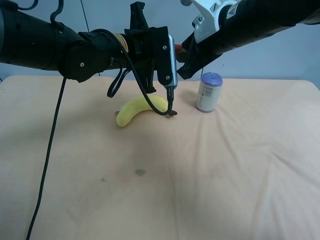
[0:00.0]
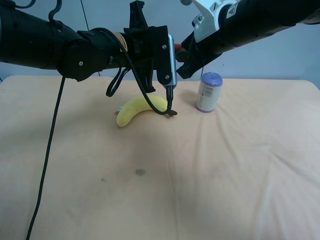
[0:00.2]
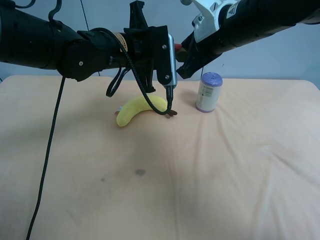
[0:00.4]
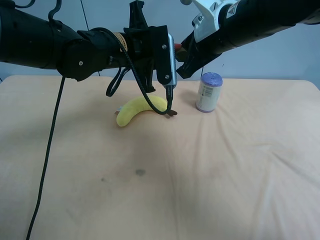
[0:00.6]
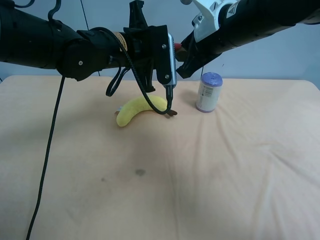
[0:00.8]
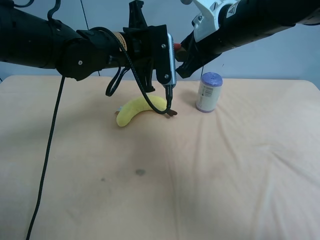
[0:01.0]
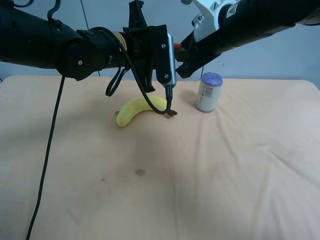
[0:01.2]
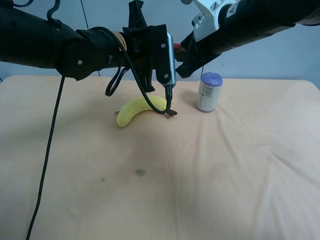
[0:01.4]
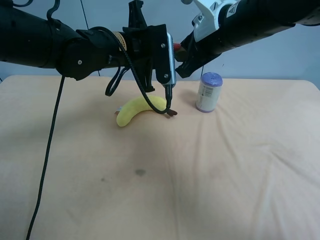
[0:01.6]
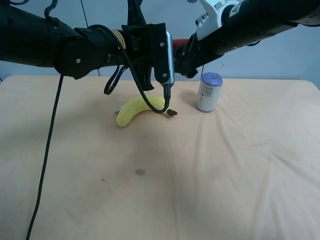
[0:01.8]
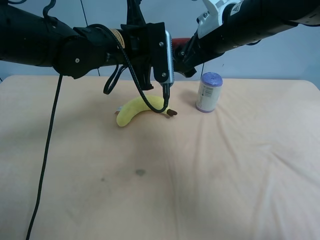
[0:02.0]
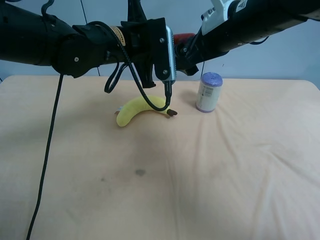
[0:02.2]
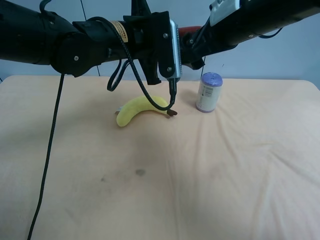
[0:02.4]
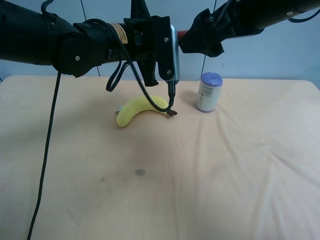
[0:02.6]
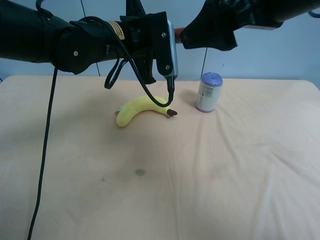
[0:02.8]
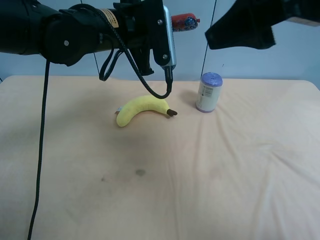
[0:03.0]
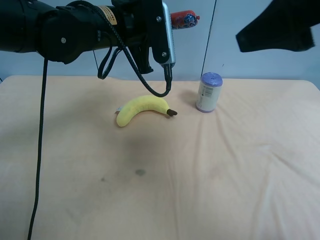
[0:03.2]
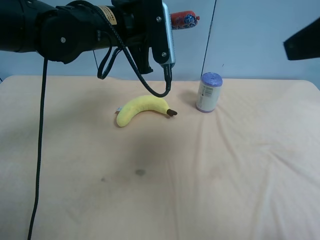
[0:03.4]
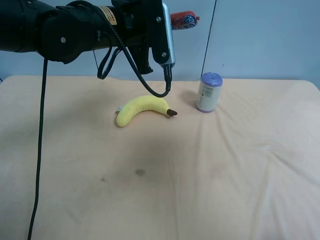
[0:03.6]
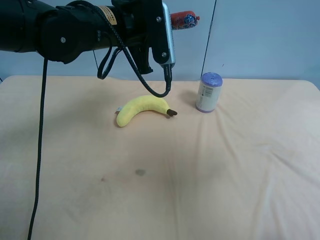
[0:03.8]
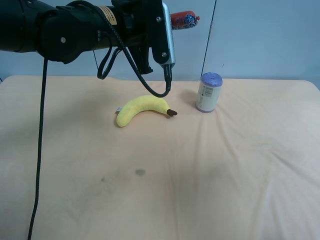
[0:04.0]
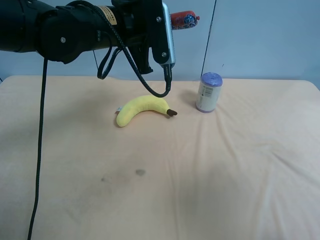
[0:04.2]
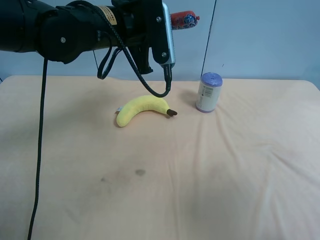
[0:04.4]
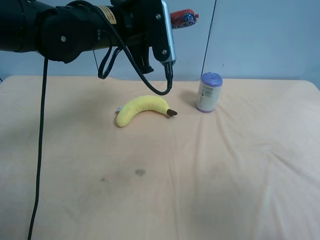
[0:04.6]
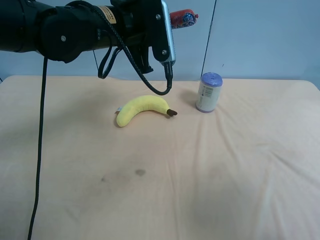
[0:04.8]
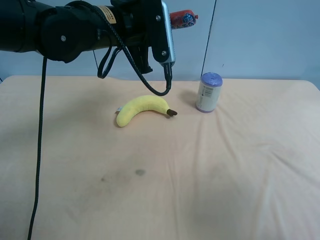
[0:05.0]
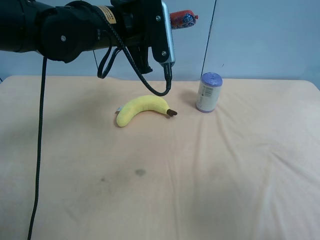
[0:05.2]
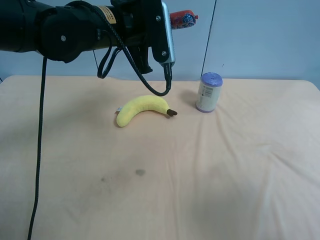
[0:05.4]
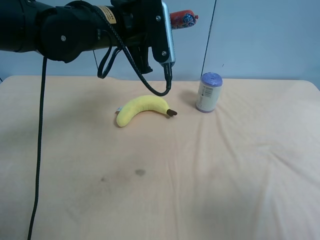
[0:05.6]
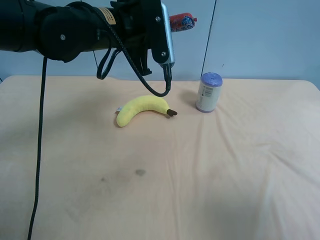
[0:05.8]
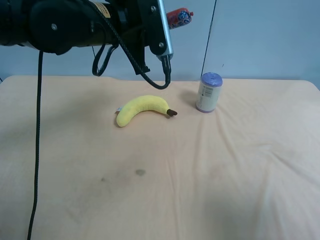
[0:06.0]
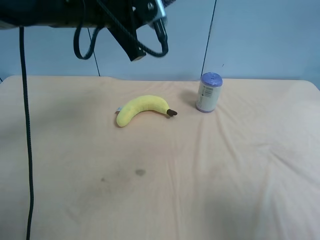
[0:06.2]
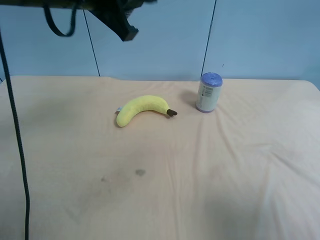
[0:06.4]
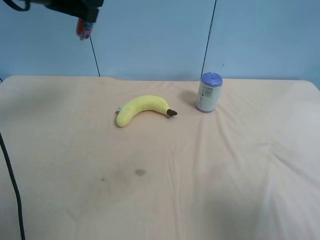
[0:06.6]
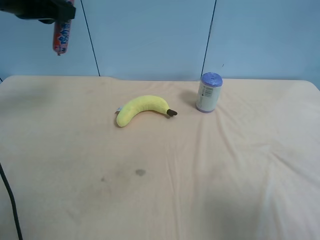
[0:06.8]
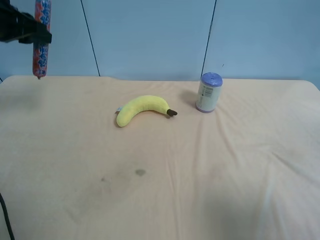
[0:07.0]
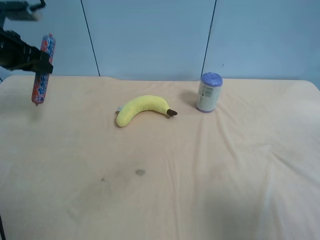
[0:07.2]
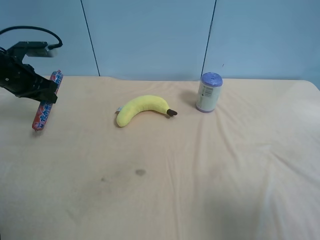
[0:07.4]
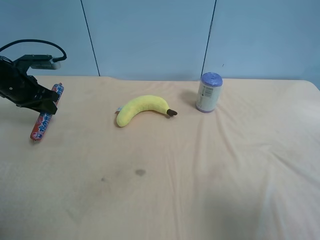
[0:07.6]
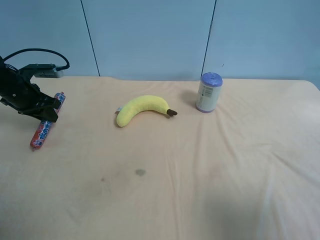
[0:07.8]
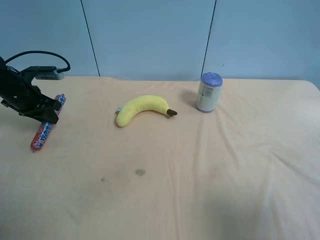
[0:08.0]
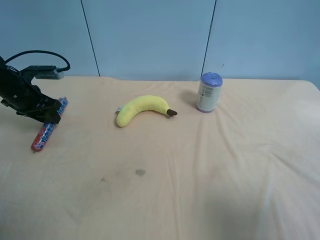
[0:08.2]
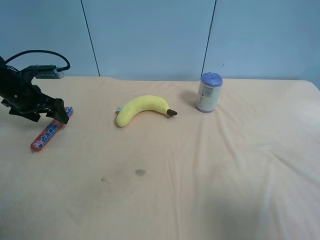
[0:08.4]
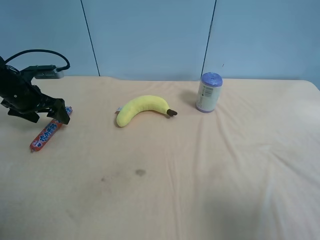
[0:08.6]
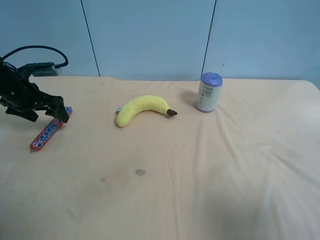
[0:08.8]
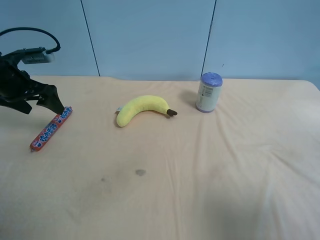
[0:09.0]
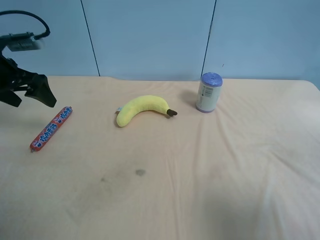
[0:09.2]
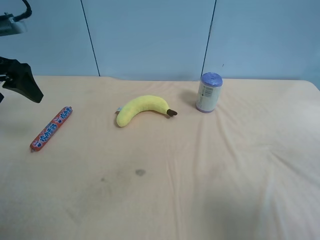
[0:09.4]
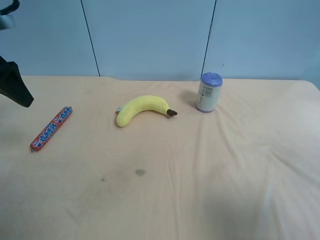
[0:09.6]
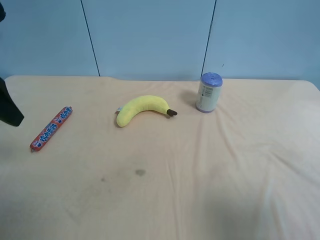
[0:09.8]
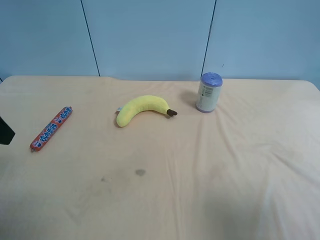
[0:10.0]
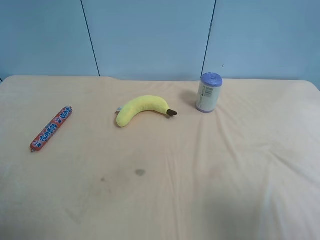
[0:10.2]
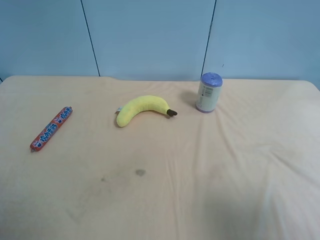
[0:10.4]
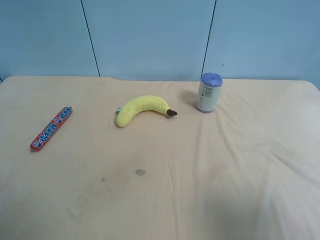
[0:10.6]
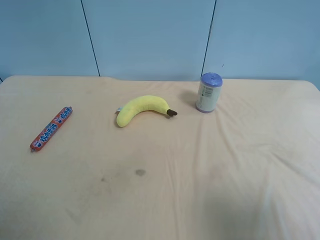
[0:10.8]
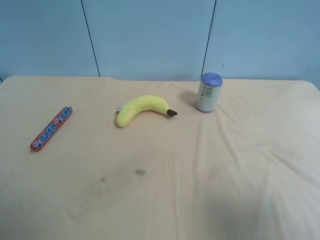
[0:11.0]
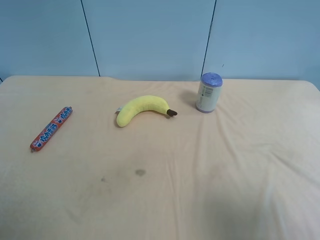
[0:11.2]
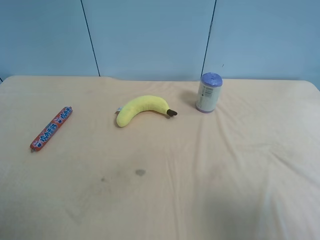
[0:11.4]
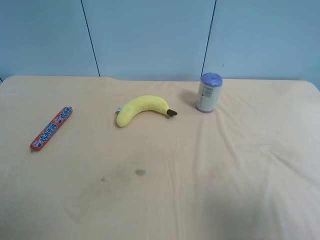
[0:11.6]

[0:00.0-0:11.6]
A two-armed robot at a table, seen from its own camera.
Task of the whole recording: use the right gripper to pick up the item and transfer it from the right gripper to the left gripper.
0:00.0 to 0:01.4: Both grippers stay put.
0:01.4 to 0:02.8: The right gripper moves backward and upward, some 15 cm, and opens up.
0:02.8 to 0:04.4: The right gripper goes roughly 25 cm backward and to the right.
0:05.8 to 0:07.2: The left gripper is displaced to the left by about 25 cm.
0:07.2 to 0:08.8: The left gripper goes roughly 5 cm downward, and opens its fingers.
0:08.8 to 0:10.2: The left gripper shifts roughly 30 cm backward and upward.
